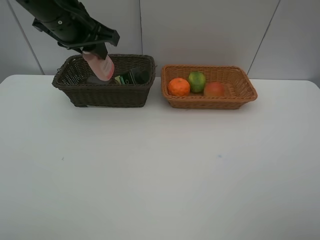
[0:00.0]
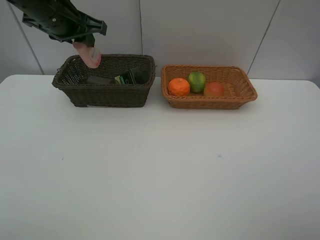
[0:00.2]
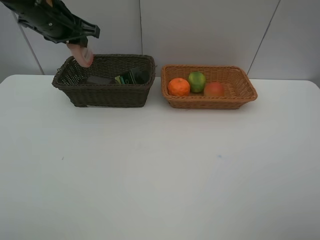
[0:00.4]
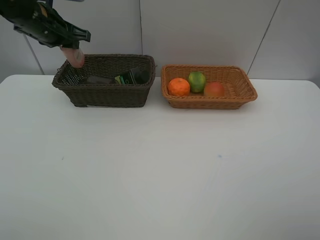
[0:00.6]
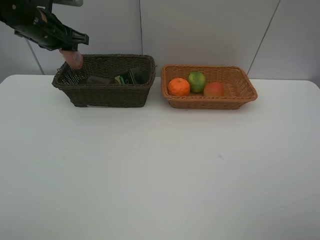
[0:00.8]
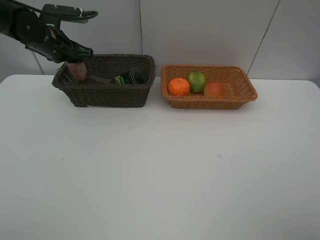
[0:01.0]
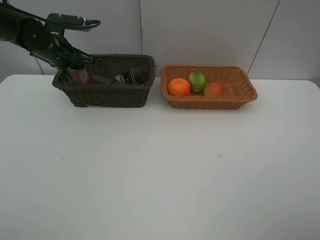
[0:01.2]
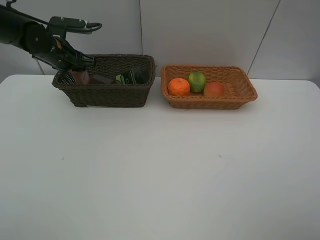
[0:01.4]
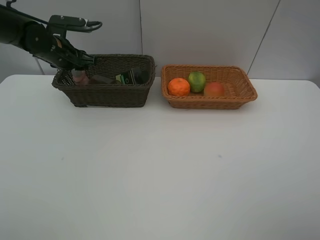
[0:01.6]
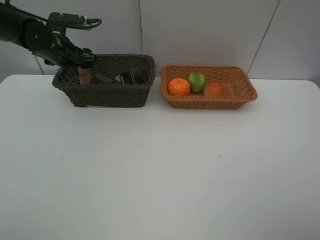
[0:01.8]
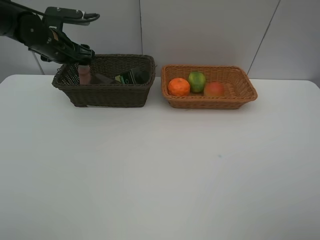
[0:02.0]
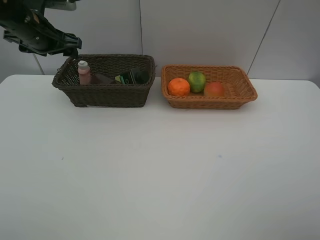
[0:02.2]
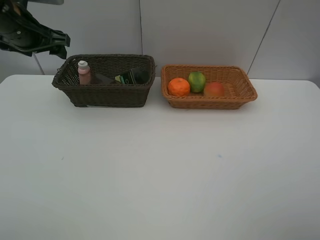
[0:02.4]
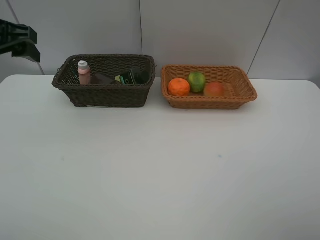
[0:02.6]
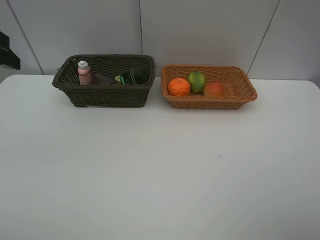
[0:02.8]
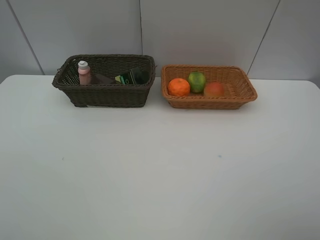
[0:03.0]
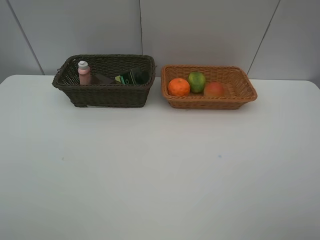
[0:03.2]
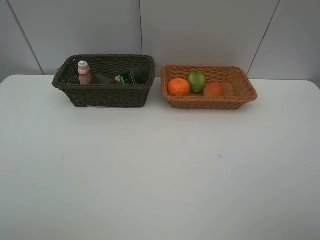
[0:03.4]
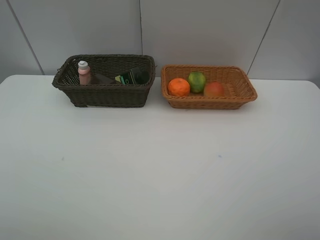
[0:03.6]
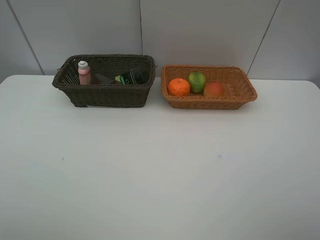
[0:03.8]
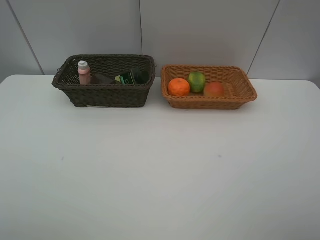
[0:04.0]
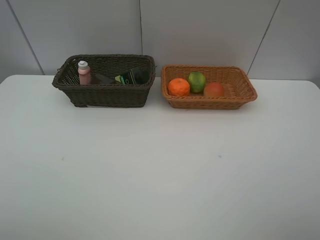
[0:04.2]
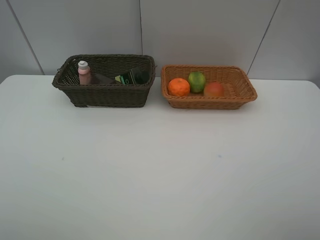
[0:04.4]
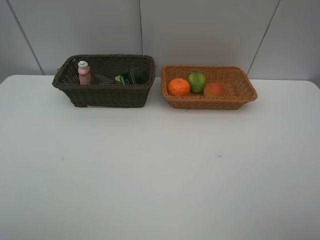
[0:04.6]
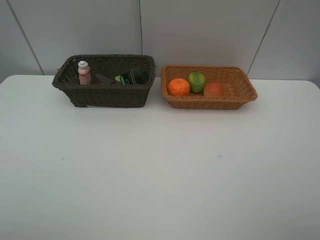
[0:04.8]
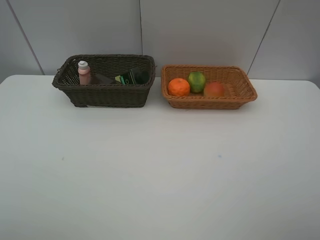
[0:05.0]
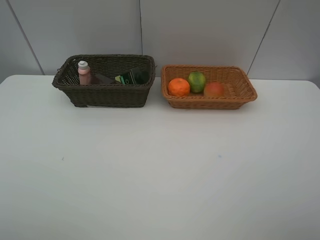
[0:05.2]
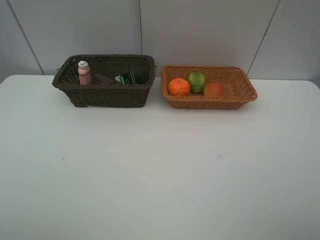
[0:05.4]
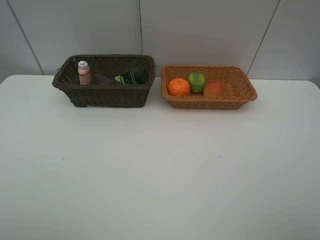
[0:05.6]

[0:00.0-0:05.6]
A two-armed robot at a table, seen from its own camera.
Task of the whole recording: place multiple objects separately in different baskets.
0:00.0 to 0:01.4: The left gripper goes roughly 20 cm downward, forward and to the left.
0:01.4 to 0:02.8: The left gripper moves backward and upward, some 30 cm, and opens its fingers.
